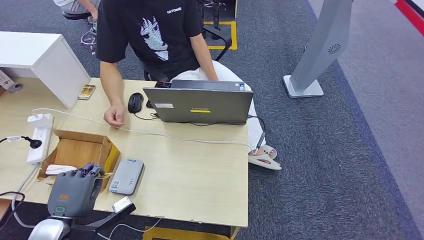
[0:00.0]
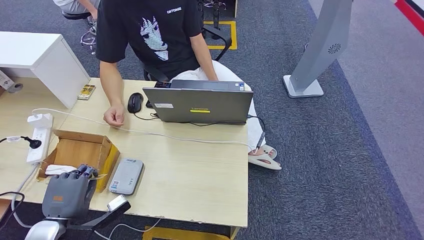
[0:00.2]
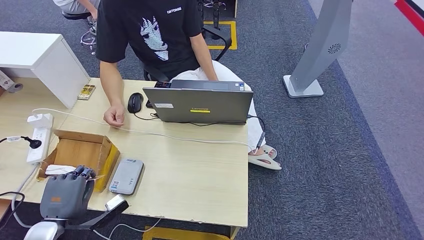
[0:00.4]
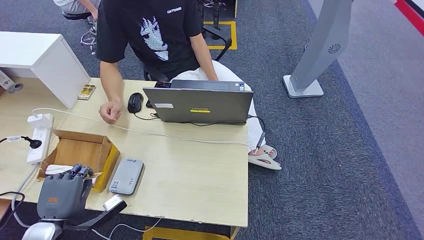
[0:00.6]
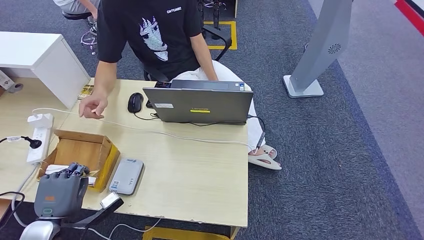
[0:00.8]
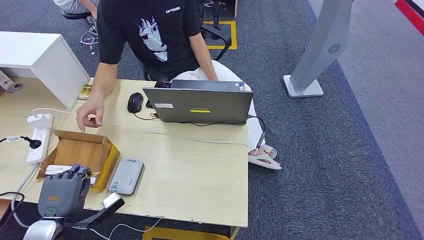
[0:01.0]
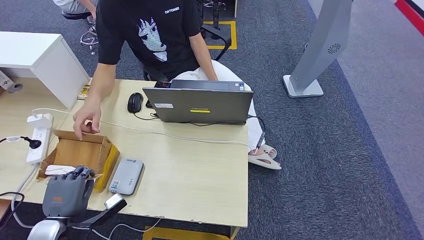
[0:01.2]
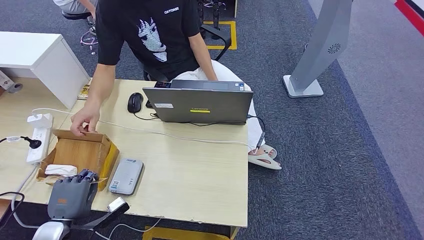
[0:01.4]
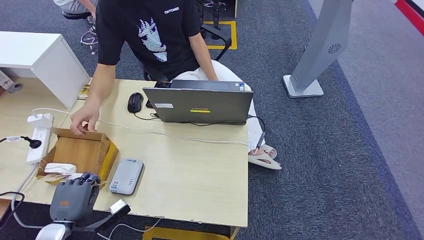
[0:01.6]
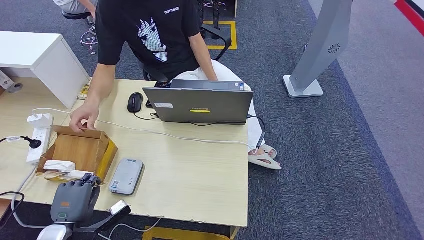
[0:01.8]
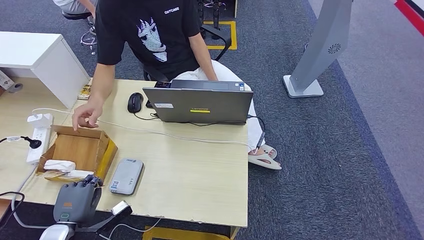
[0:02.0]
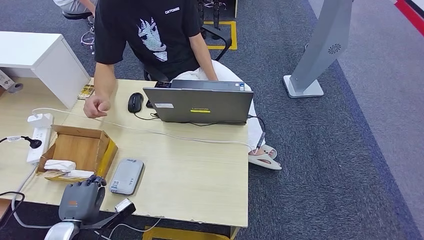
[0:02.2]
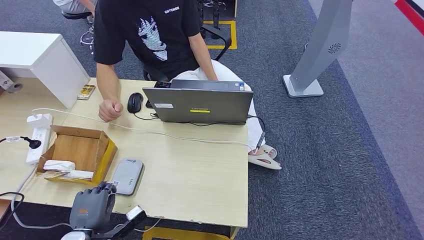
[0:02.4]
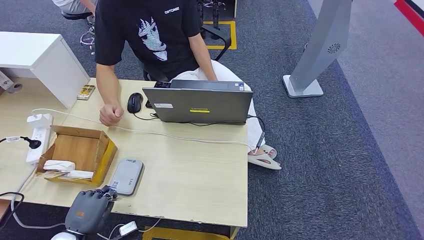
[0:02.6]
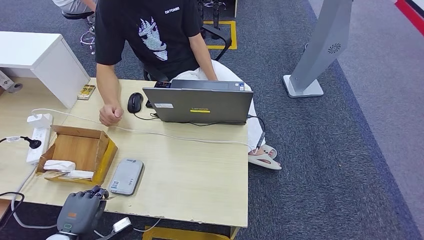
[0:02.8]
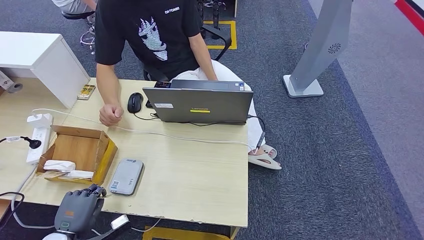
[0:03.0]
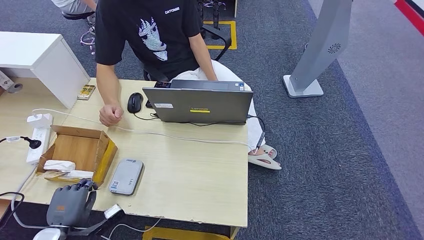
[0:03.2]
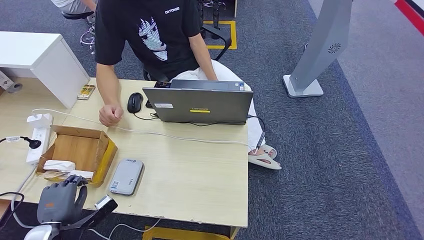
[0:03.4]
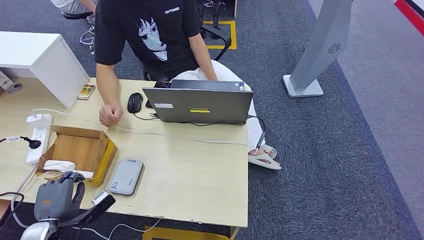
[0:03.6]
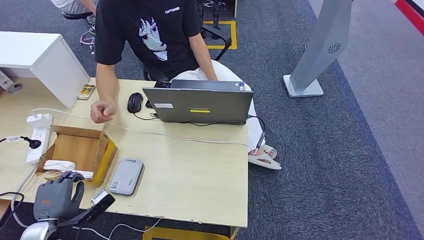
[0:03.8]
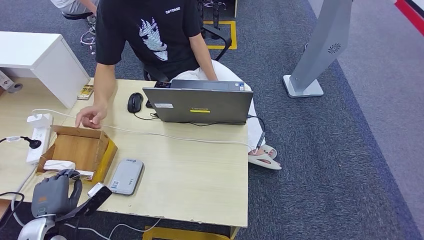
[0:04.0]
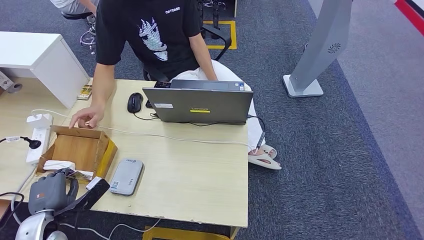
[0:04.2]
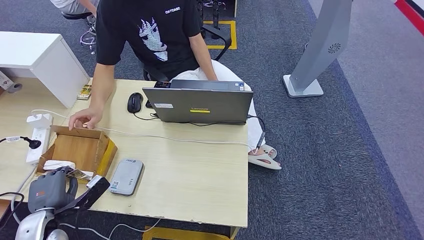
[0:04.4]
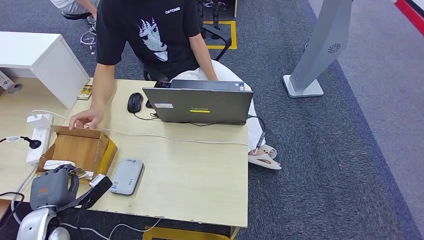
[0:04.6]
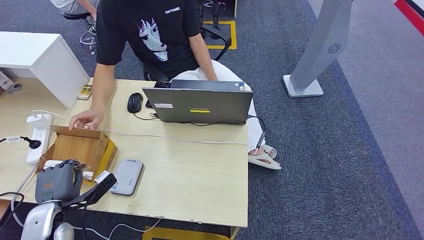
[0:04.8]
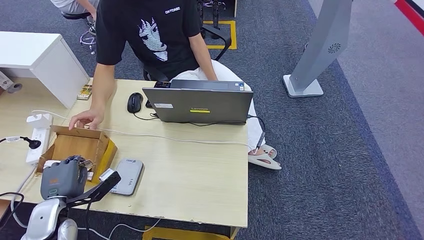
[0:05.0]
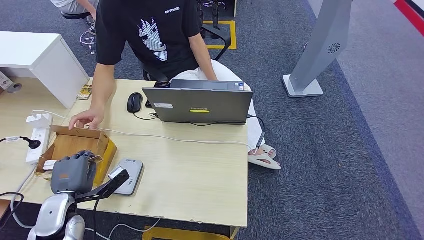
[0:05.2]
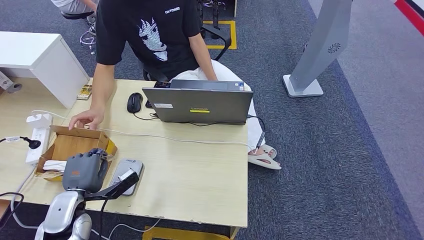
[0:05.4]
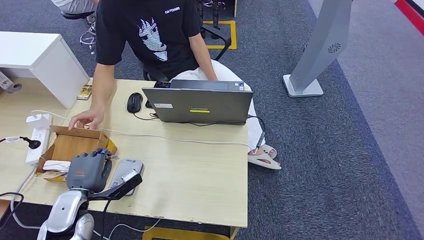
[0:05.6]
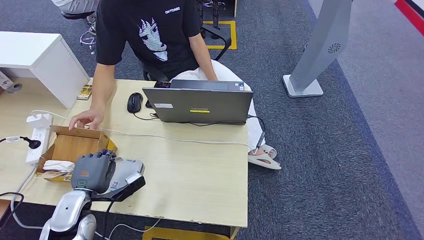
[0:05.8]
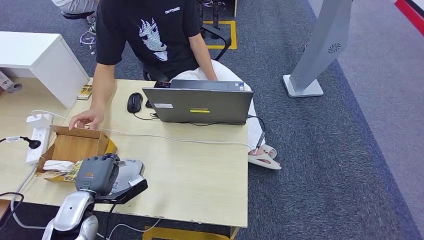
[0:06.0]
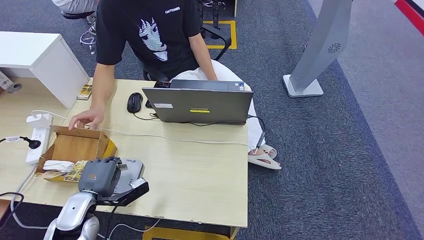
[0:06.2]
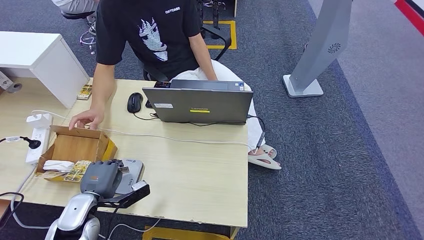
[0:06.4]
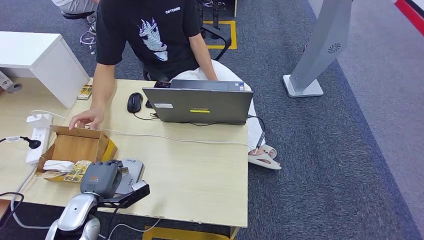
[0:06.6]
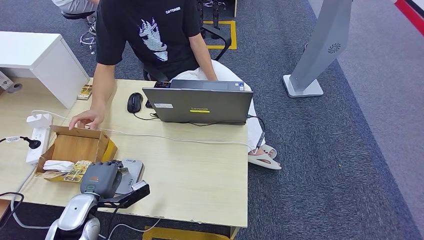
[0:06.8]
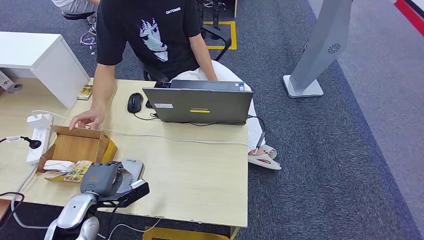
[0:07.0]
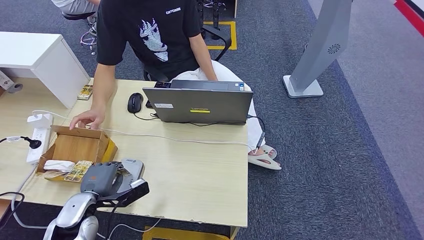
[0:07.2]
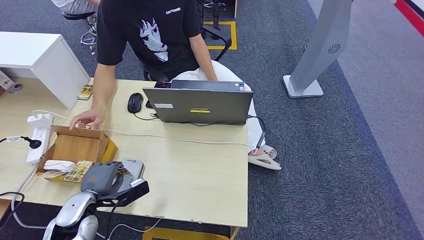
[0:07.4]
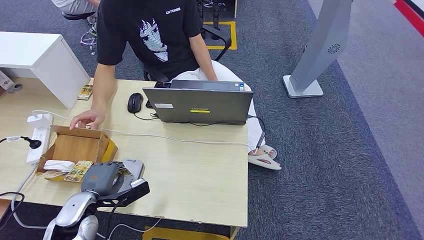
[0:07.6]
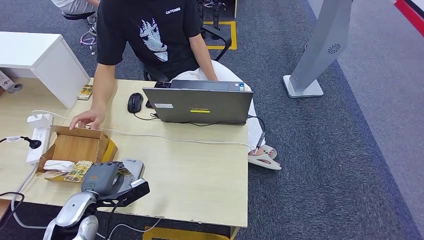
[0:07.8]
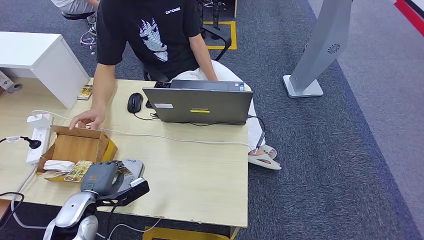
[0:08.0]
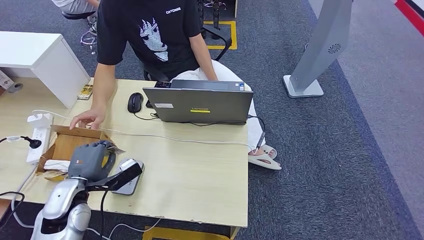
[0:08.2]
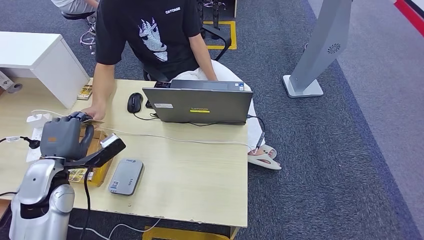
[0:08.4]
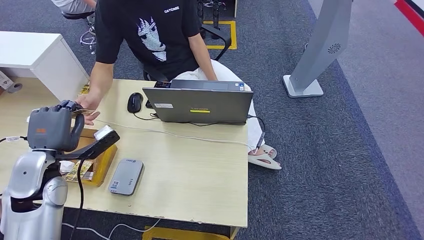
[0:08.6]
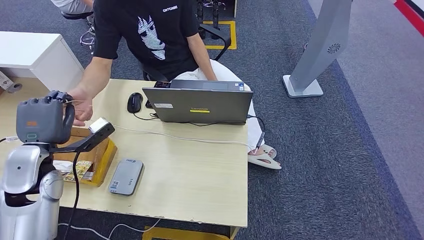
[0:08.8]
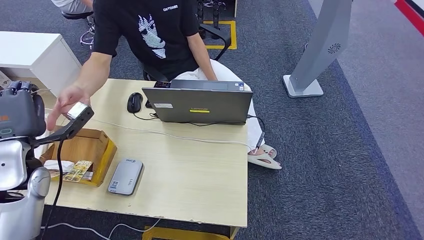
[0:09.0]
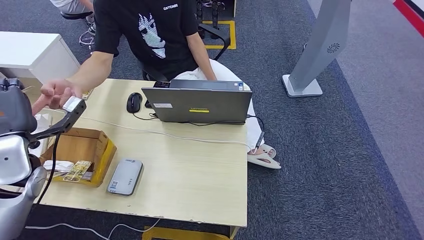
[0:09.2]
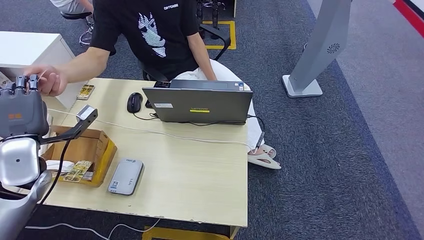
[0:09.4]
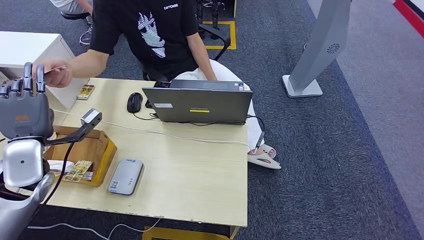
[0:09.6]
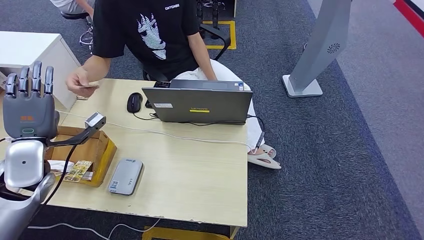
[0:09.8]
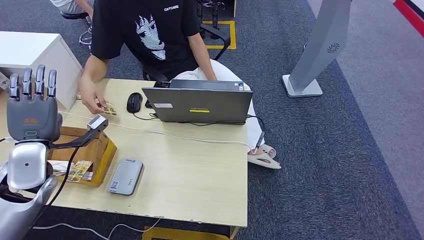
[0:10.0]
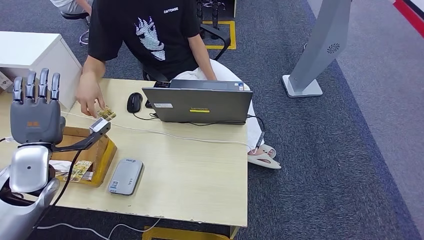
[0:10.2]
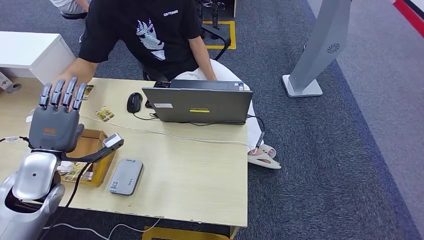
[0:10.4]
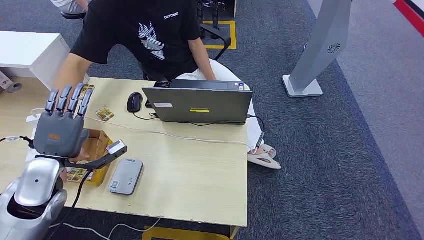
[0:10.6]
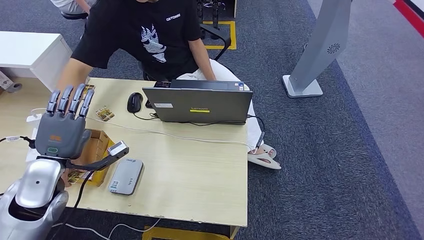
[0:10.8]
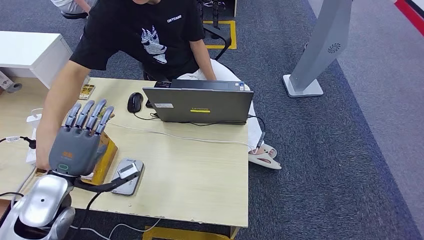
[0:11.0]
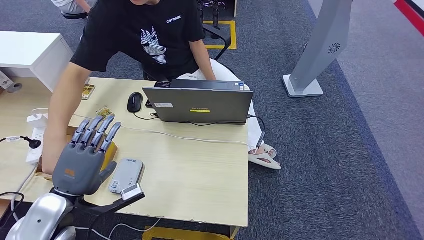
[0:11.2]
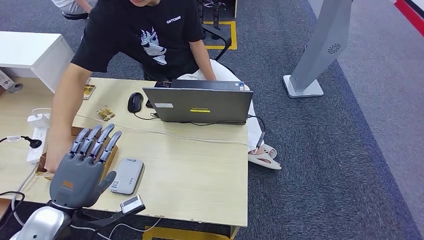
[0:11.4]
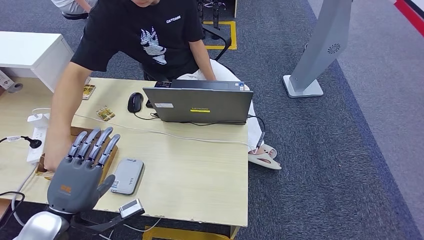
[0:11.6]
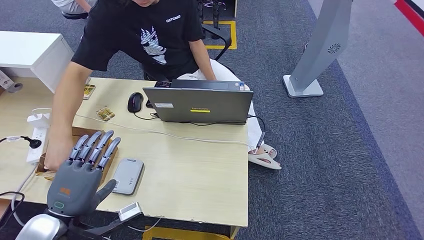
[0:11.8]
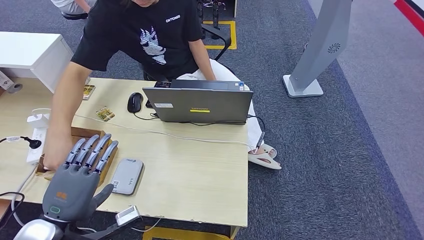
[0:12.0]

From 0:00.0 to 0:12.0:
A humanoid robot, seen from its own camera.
Step, from 0:00.0 to 0:07.2: Place the ID card on the card reader.
Step, from 0:07.6 to 0:09.8: Hand the ID card to the person.
From 0:00.0 to 0:01.6: The left hand is displaced downward by roughly 5 cm.
From 0:01.6 to 0:03.0: The hands make only small movements.
From 0:03.0 to 0:04.4: The left hand moves some 5 cm.
From 0:04.4 to 0:06.0: The left hand is displaced forward and to the right by some 10 cm.
From 0:06.0 to 0:07.6: The hands stay close to where they were, moving slightly.
From 0:07.6 to 0:09.0: The left hand heads upward, covering some 15 cm.
From 0:09.0 to 0:10.4: The hands stay close to where they were, moving slightly.
From 0:10.4 to 0:12.0: The left hand is displaced backward and to the right by some 15 cm.

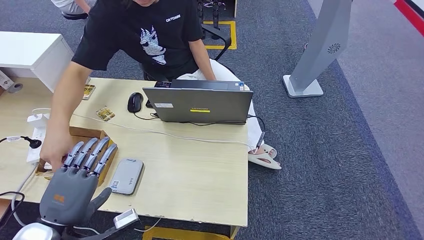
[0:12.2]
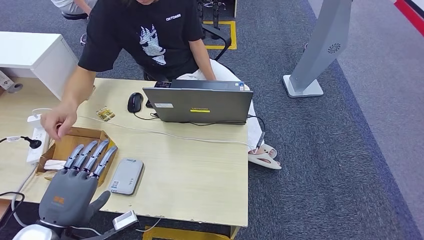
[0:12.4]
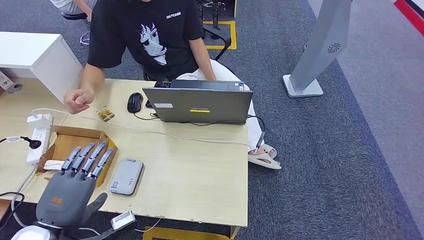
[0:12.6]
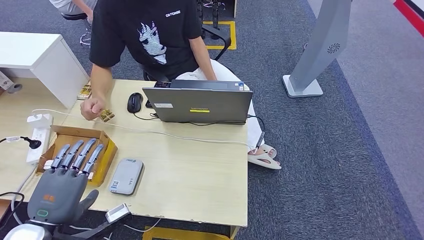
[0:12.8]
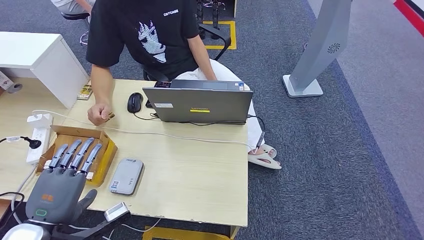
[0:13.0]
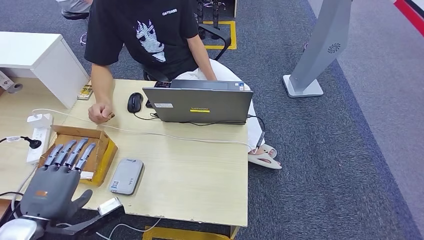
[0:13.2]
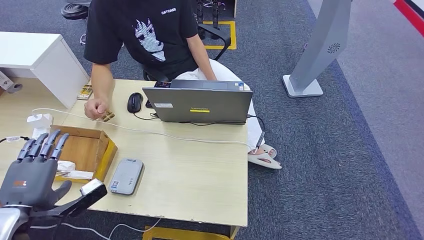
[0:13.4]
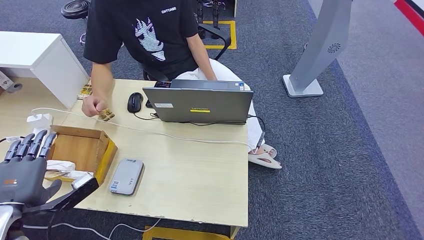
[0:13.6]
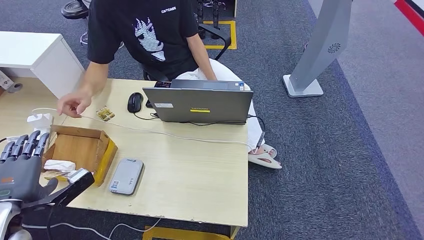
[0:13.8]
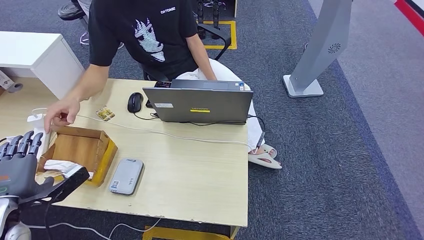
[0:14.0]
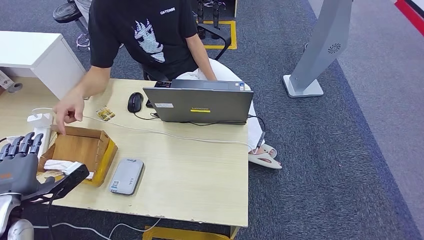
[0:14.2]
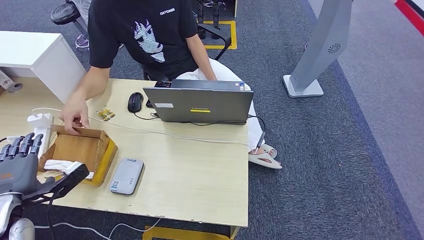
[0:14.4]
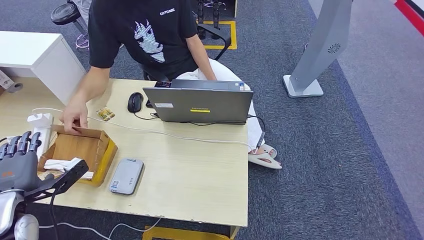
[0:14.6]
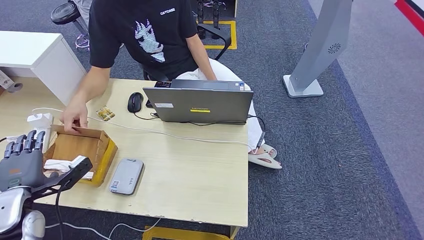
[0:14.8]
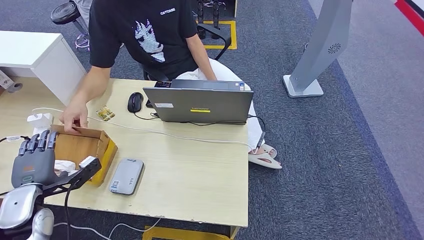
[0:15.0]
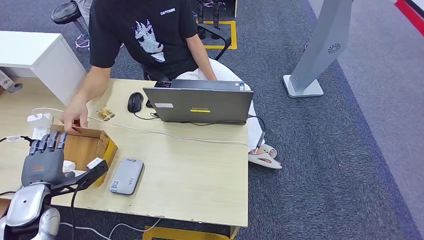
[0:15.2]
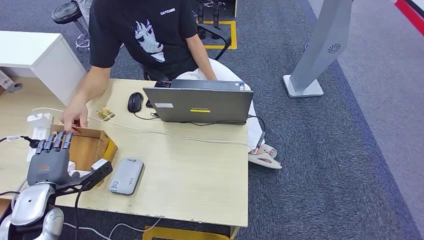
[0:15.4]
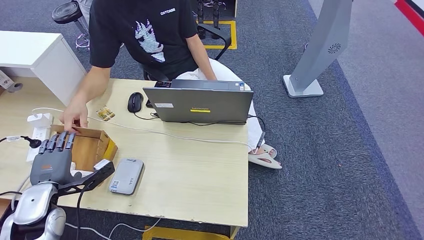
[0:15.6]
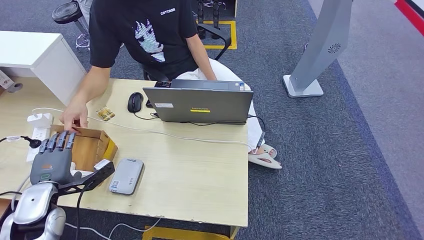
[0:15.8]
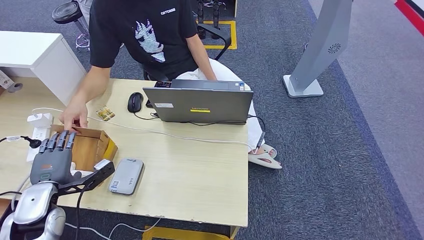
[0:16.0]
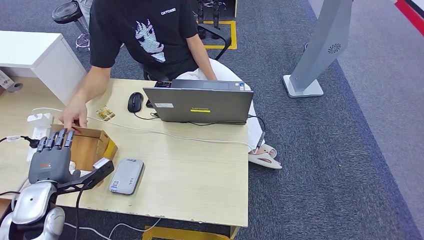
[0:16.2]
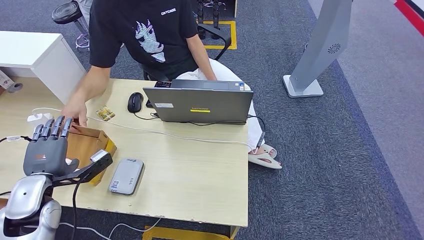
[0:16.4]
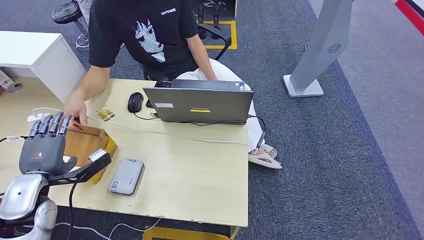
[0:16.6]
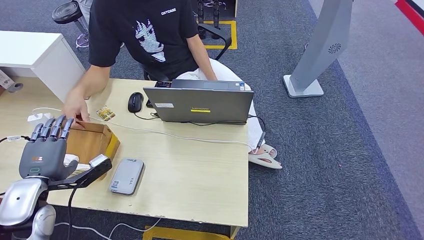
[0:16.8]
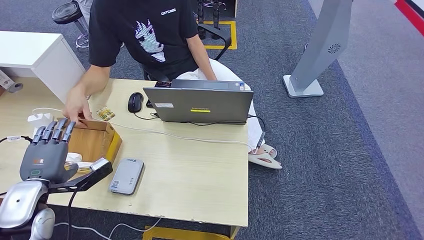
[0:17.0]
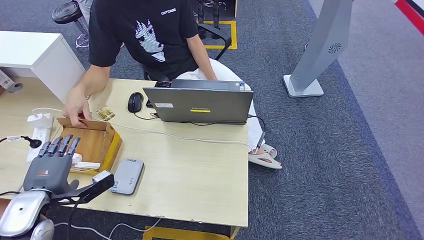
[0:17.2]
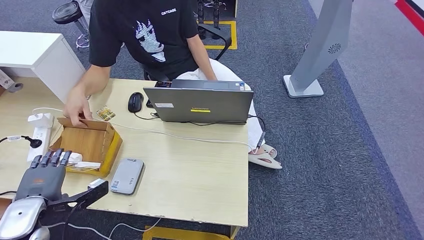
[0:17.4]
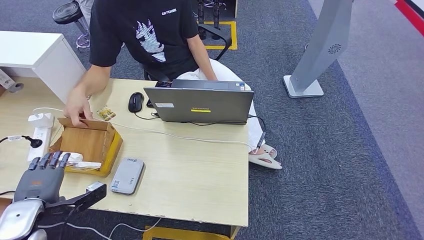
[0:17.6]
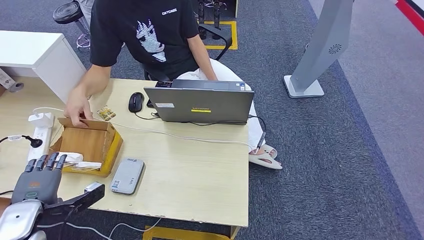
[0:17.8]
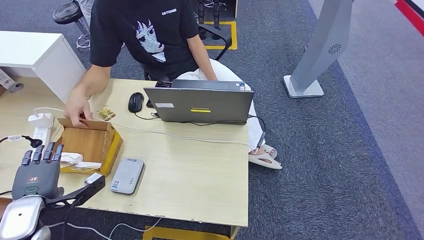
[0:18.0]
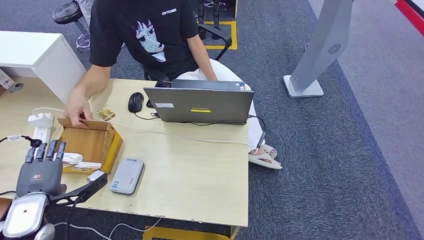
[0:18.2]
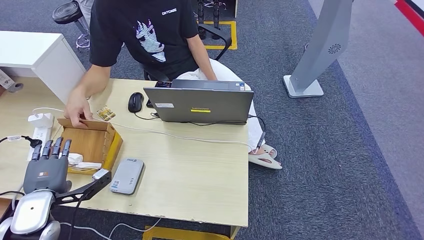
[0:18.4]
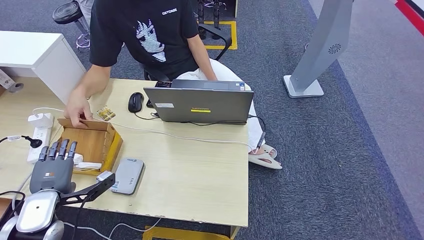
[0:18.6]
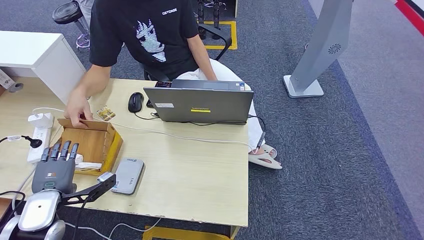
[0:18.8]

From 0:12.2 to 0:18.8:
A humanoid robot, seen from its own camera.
From 0:12.2 to 0:13.8: The left hand heads to the left, covering roughly 10 cm.
From 0:13.8 to 0:15.4: The left hand moves downward and forward, approximately 10 cm.
From 0:15.4 to 0:18.8: The hands move only a little.
